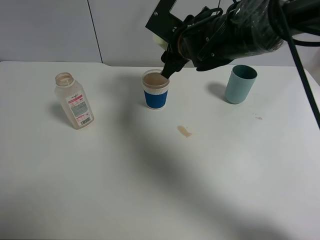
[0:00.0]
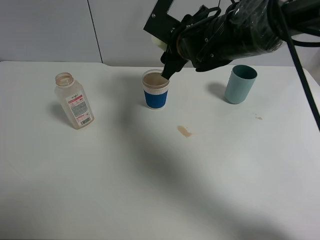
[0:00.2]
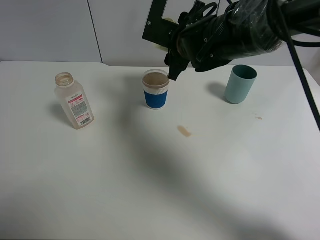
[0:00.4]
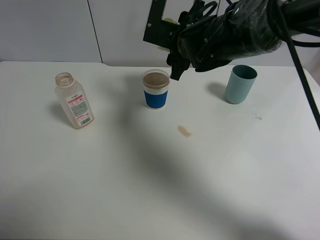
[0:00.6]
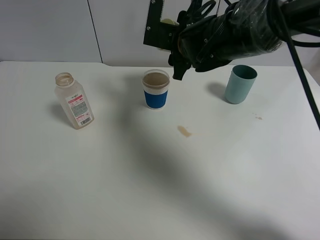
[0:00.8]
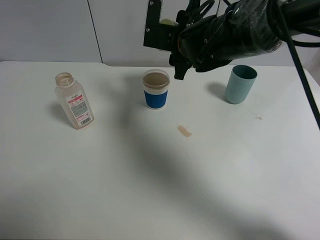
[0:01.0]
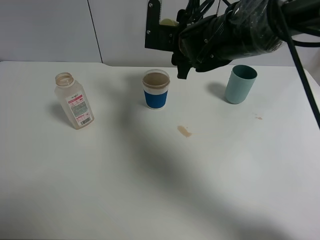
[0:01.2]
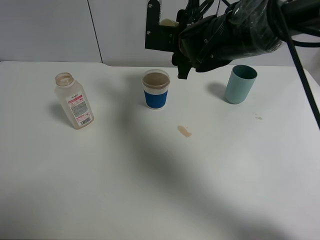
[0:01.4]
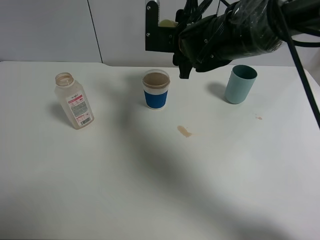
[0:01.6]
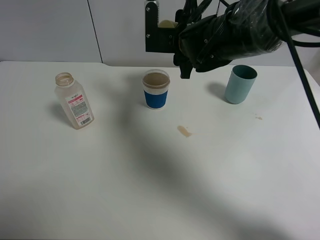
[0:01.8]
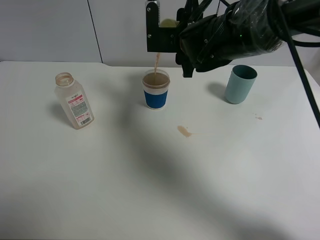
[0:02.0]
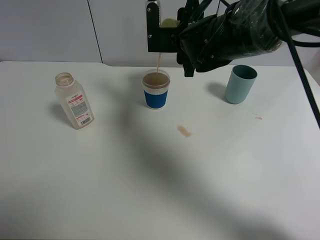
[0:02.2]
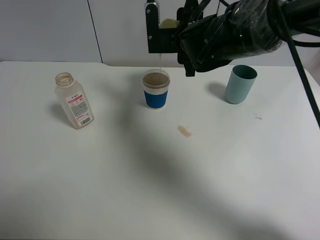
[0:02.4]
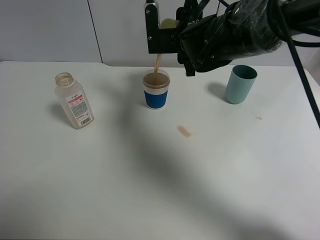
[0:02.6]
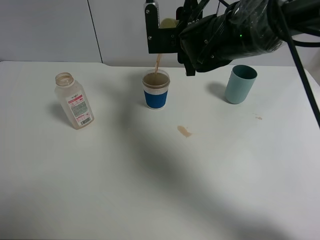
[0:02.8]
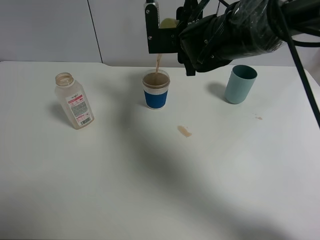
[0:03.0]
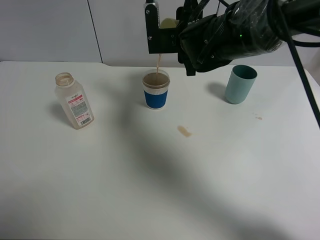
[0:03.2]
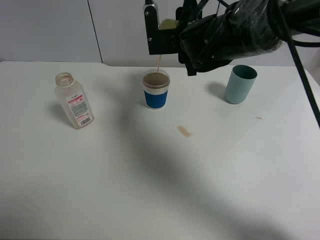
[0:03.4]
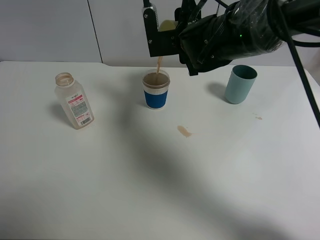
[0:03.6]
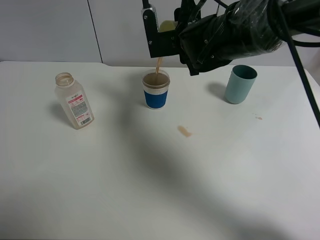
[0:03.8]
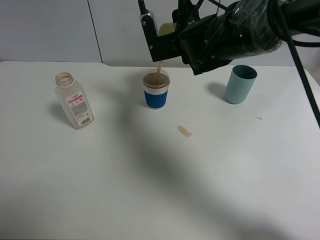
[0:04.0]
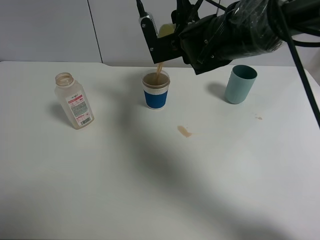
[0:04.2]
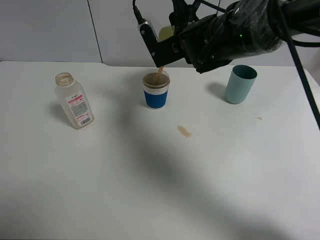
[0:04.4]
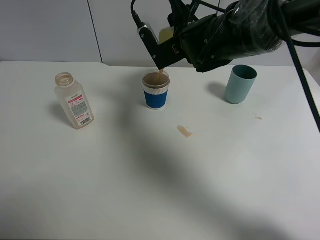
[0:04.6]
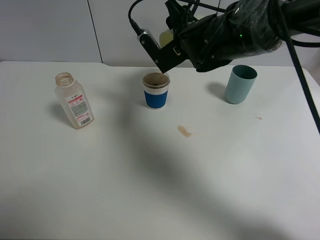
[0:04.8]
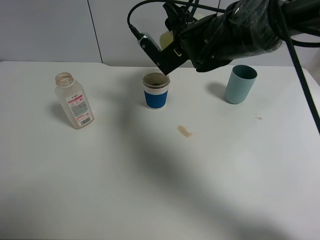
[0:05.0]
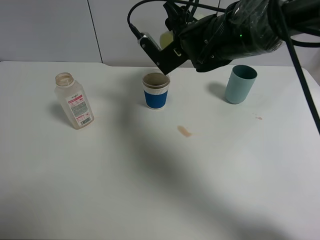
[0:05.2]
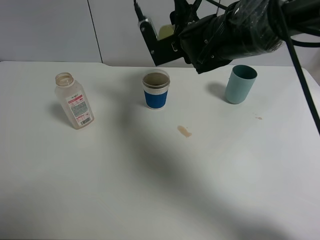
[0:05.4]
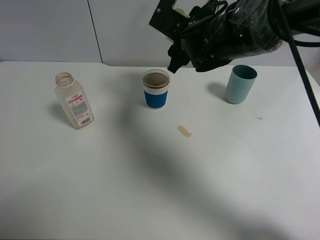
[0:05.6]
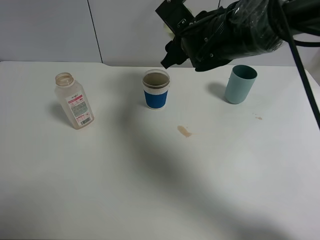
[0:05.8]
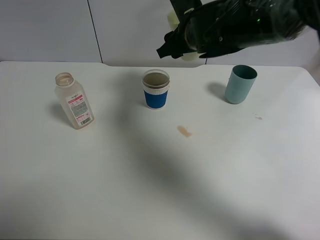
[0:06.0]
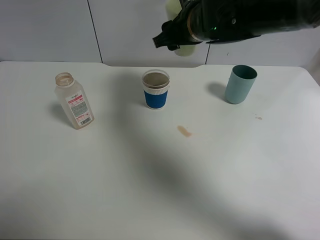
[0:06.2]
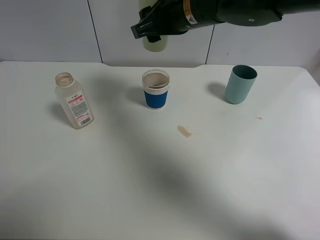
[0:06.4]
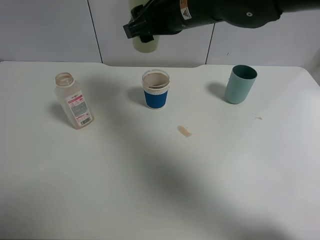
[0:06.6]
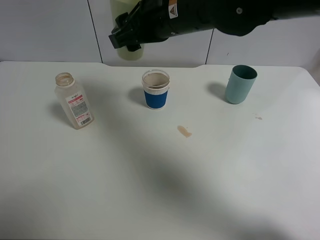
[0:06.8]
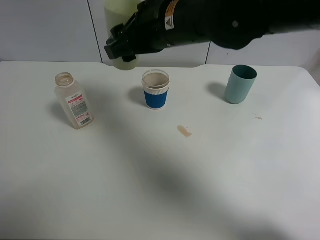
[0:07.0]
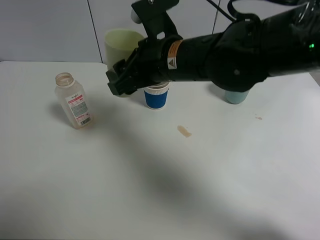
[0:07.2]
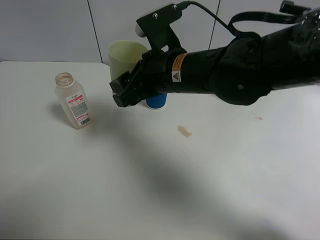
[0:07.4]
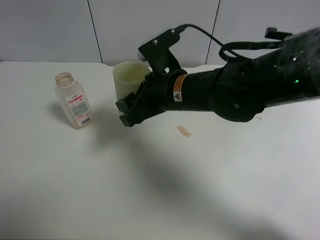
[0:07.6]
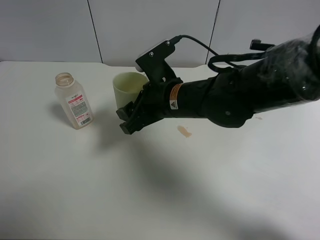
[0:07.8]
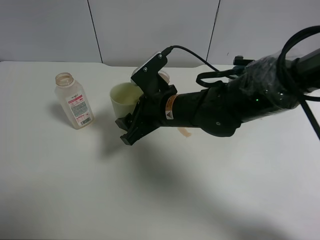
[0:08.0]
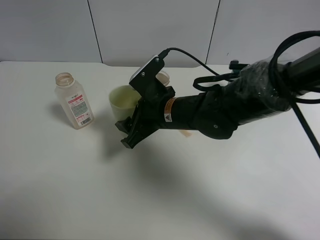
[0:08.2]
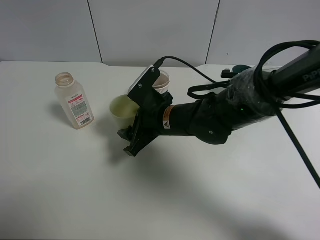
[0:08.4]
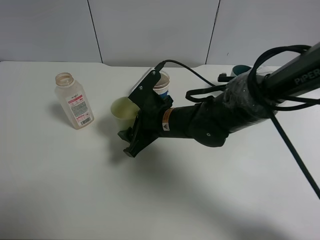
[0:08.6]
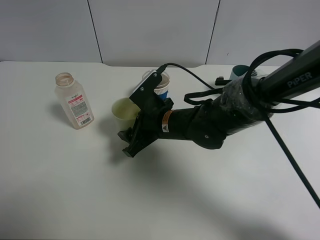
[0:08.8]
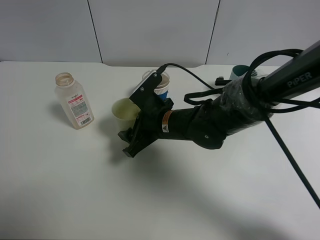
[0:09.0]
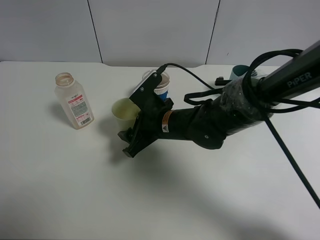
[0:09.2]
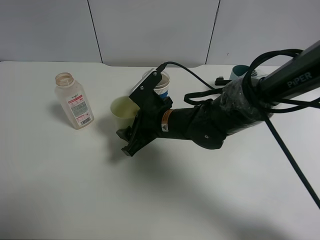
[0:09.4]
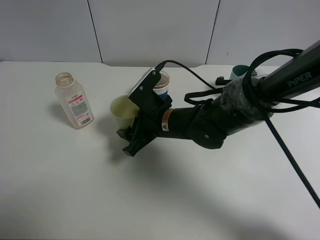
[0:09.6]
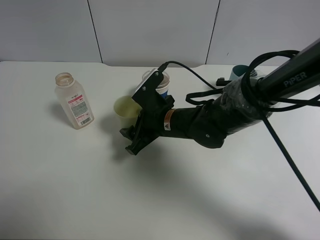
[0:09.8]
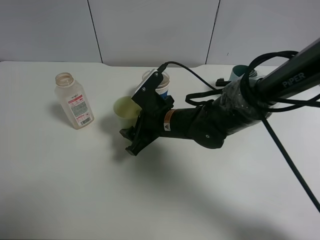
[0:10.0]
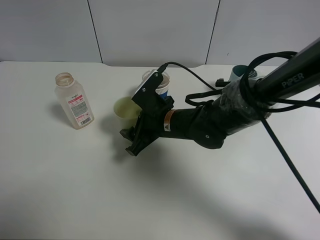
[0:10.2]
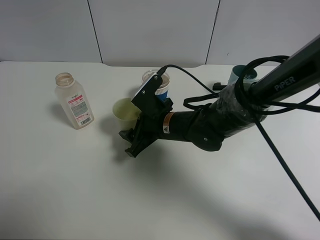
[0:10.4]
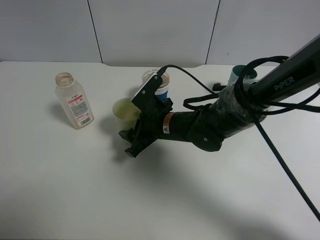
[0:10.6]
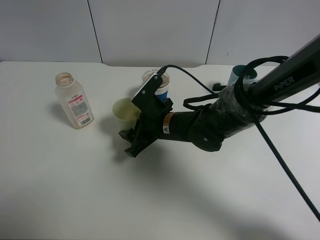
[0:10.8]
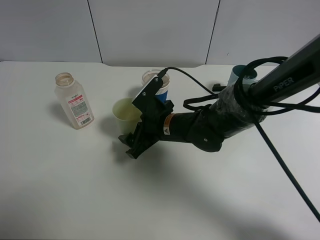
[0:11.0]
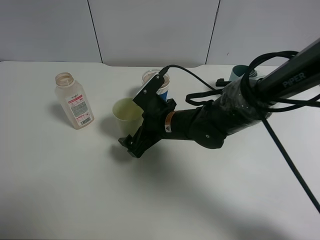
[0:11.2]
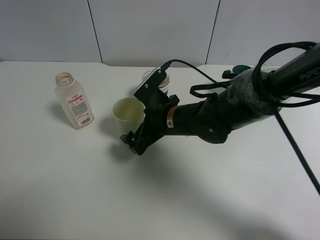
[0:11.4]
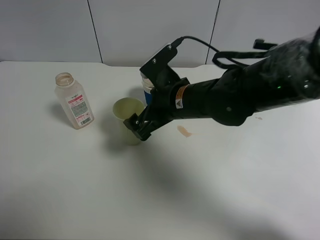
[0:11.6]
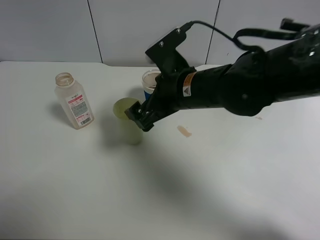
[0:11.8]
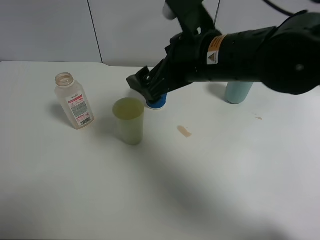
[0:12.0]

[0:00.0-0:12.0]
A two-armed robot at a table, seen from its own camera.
Task of the whole recording: use a clamp to hold the bottle of the drink, pour the beverage into a random cup, then clamp the cup containing the drink and pour the drink into another random cup.
Step, 0:00.0 to 0:05.6: Pour the drink into the paper cup with right gripper.
Step, 0:05.8 to 0:11.4: Place the green plastic cup on the table with right gripper.
0:01.6 to 0:03.0: The grippers move only a little.
0:06.0 to 0:07.6: The right gripper shifts about 10 cm backward and downward.
0:07.6 to 0:09.0: The right gripper moves downward, approximately 10 cm.
0:09.0 to 0:10.4: The grippers move only a little.
0:10.4 to 0:12.0: The right gripper travels upward by about 15 cm, and opens up.

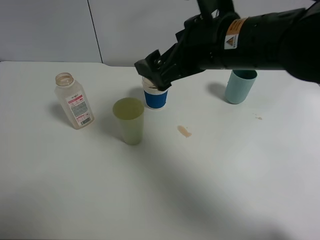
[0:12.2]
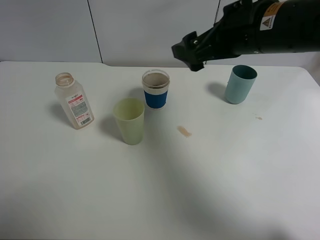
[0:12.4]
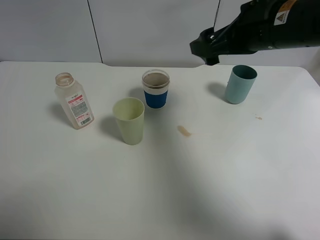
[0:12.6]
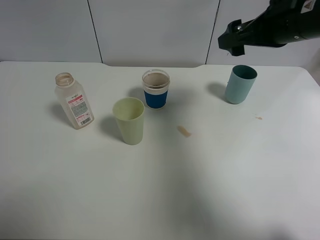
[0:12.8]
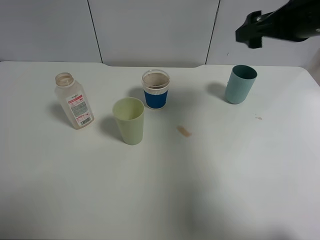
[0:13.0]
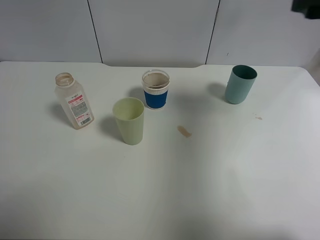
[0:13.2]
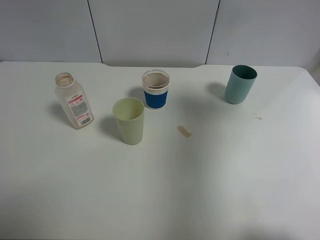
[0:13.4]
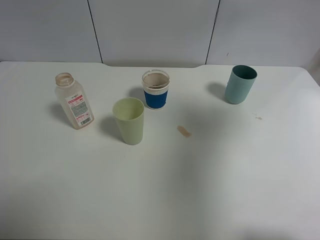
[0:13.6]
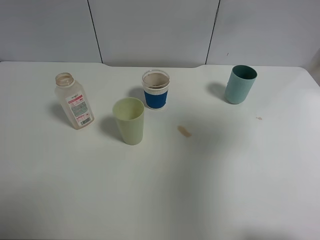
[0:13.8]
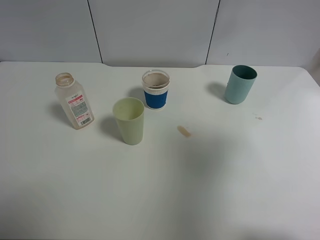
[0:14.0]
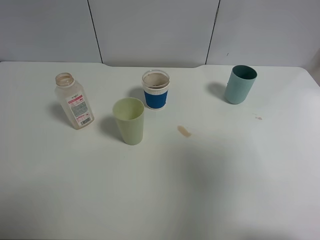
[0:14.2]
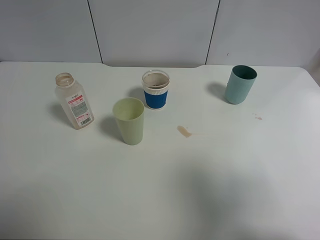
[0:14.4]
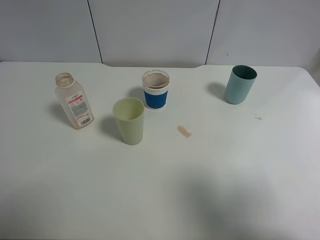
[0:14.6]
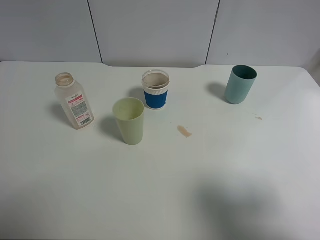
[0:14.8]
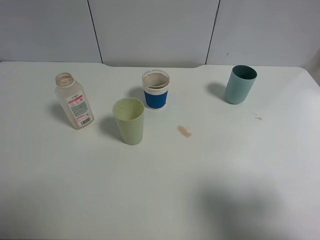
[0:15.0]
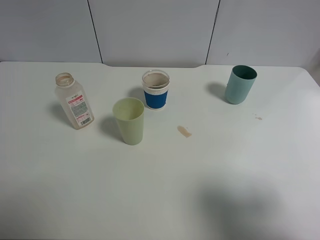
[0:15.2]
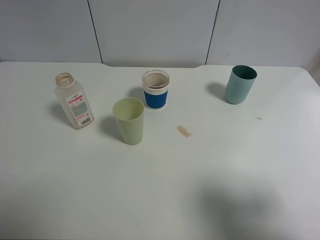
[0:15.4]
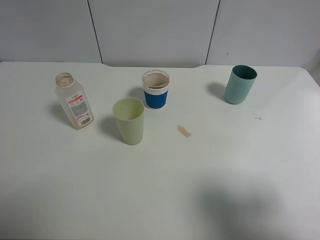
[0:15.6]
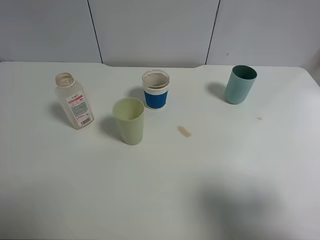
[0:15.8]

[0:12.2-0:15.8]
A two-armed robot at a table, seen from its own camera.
Task of the whole recording: use a clamp to hold the bottle of the drink, pour the beverage into a random cup, then clamp the cup containing the drink and pour the drink into another random cup.
0:12.2 to 0:14.0: The right gripper moves to the right, backward and upward, approximately 30 cm.
0:14.0 to 0:15.8: The right gripper travels downward and backward by some 15 cm.
